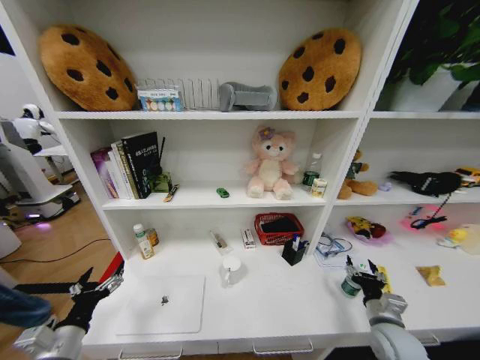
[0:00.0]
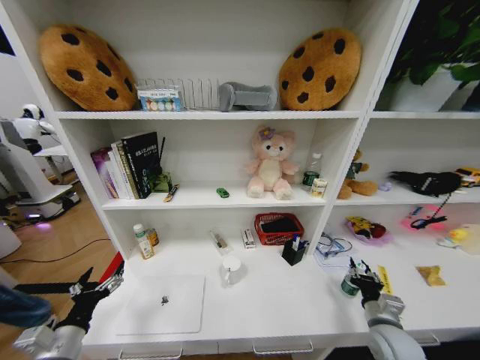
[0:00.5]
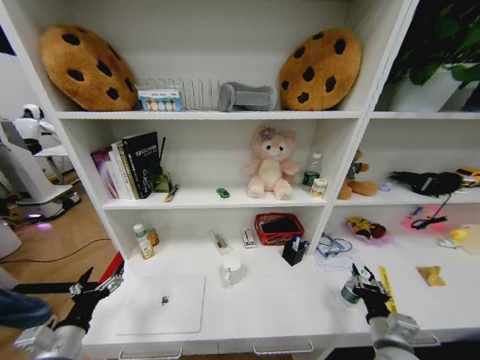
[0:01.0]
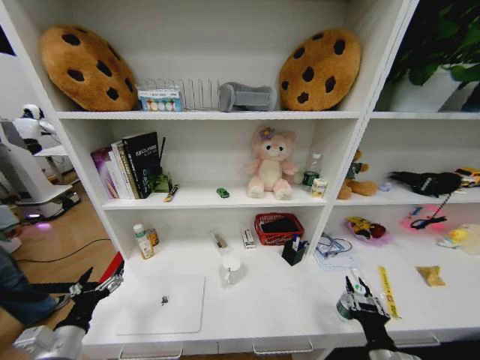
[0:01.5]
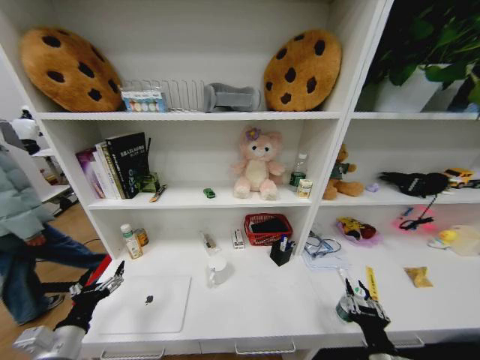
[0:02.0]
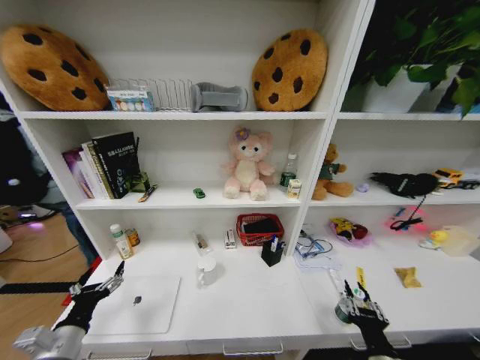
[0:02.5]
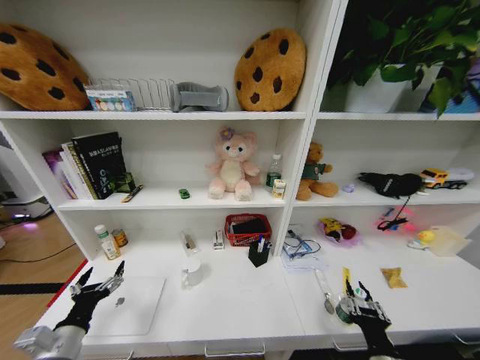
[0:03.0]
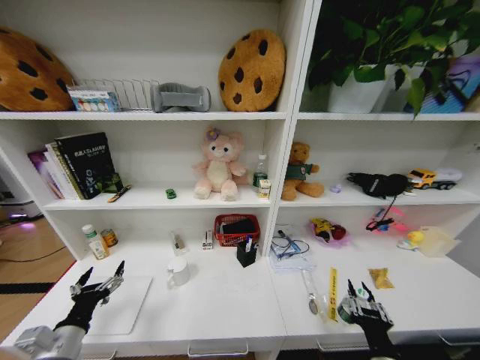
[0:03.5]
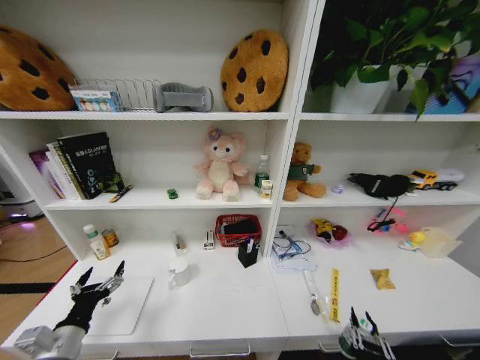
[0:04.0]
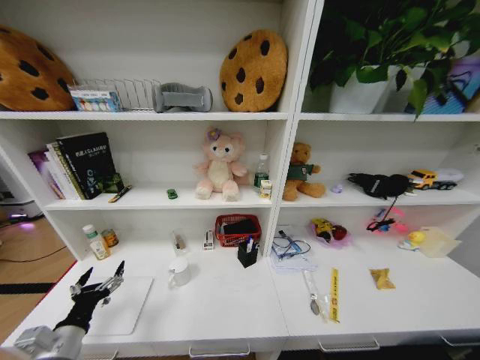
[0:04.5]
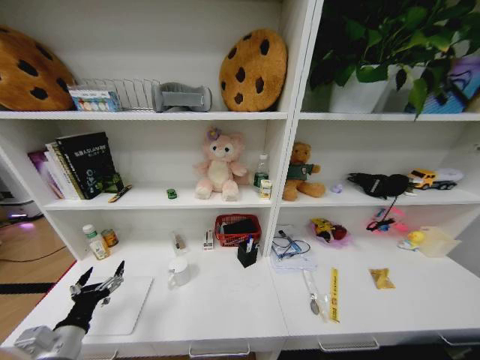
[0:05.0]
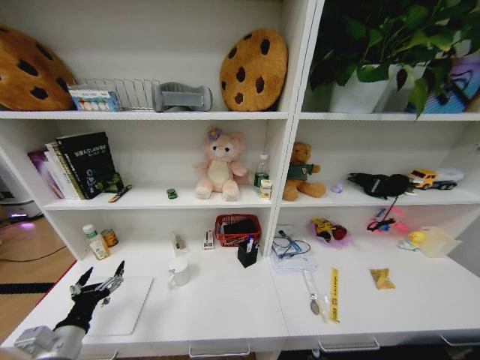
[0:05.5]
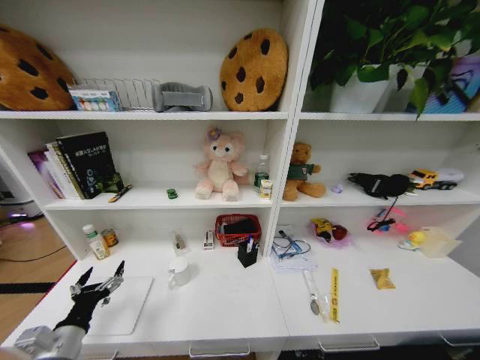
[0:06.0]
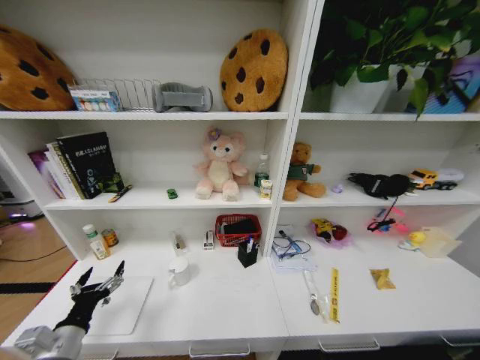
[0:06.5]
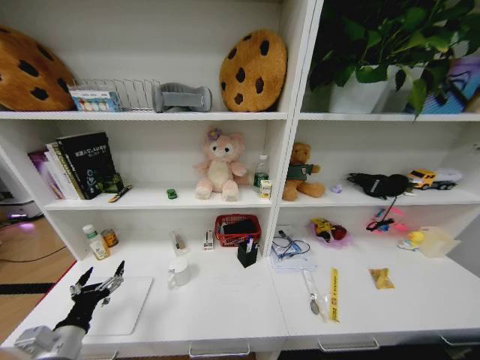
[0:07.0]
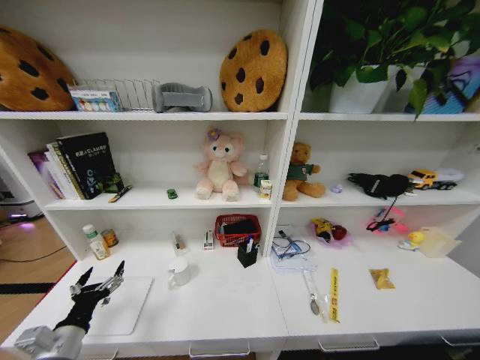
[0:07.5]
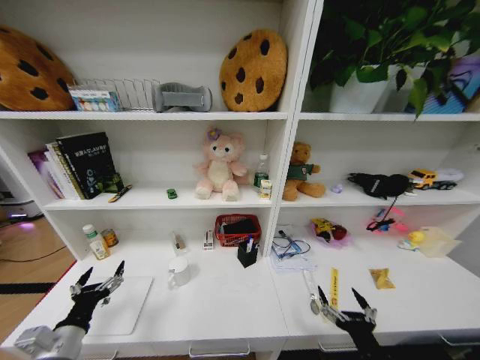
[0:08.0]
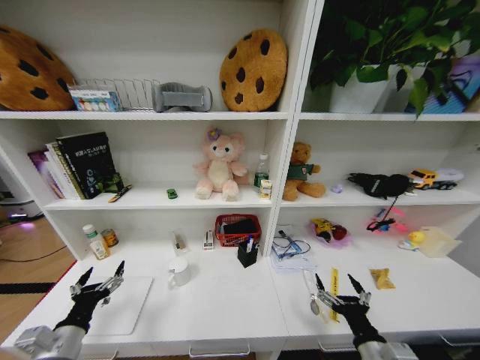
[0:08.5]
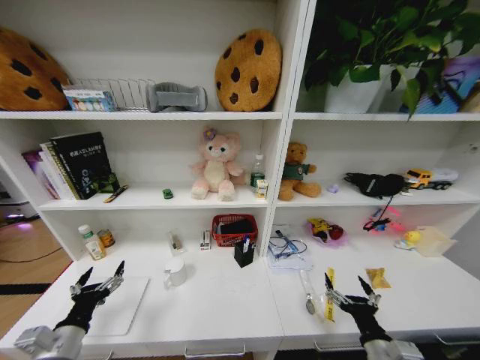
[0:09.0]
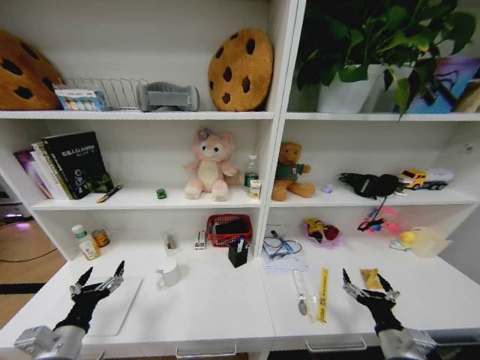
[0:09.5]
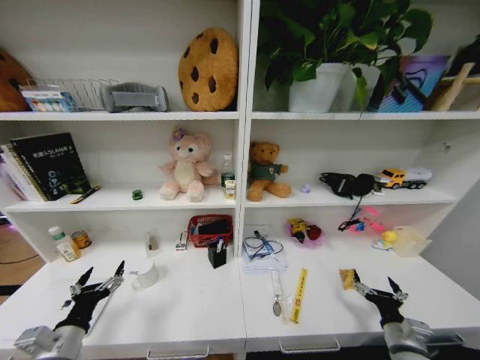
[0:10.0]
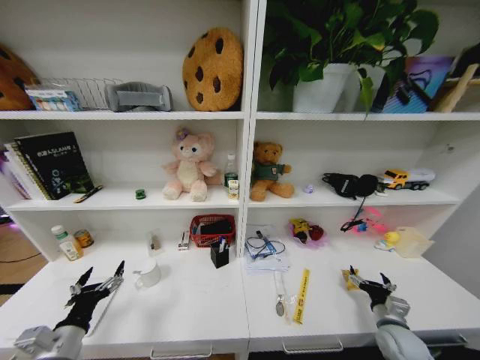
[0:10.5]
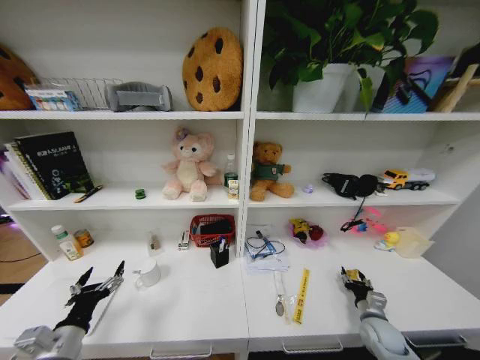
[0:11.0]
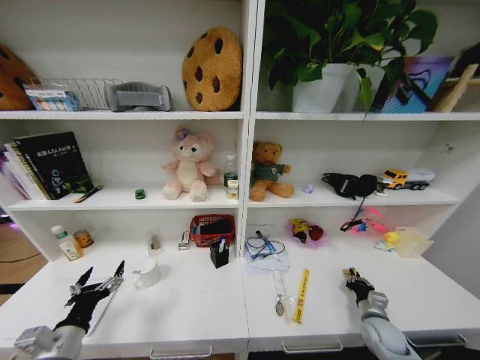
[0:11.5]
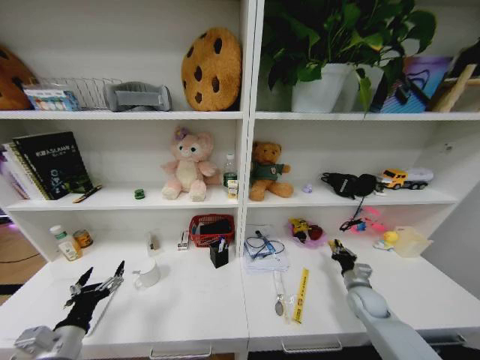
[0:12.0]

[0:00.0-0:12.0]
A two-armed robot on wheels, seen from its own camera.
Task of the whole recording: Organize the objects on the table.
0:00.0 to 0:02.0: The right gripper travels backward and to the left by some 15 cm, and closes up.
0:02.0 to 0:04.0: The right gripper shifts roughly 10 cm backward and to the left.
0:04.0 to 0:06.0: The right gripper moves downward, some 35 cm, and opens its fingers.
0:06.0 to 0:08.0: The right gripper moves upward, about 40 cm, and opens.
0:08.0 to 0:10.0: The right gripper goes roughly 15 cm to the right, forward and downward.
0:10.0 to 0:12.0: The right gripper shifts some 15 cm forward, and closes up.

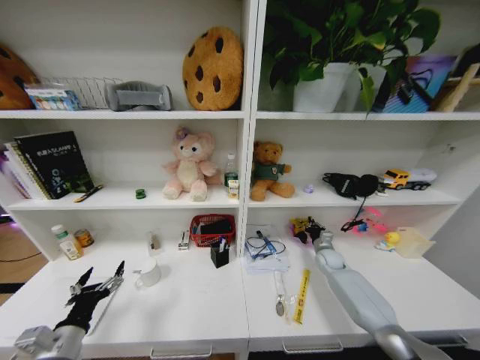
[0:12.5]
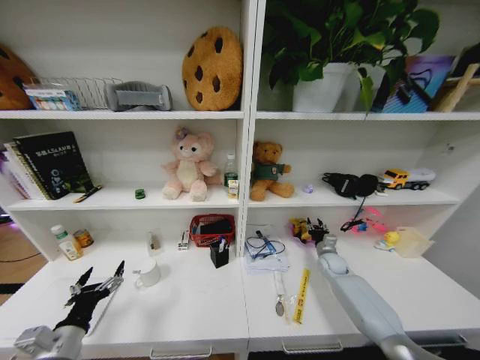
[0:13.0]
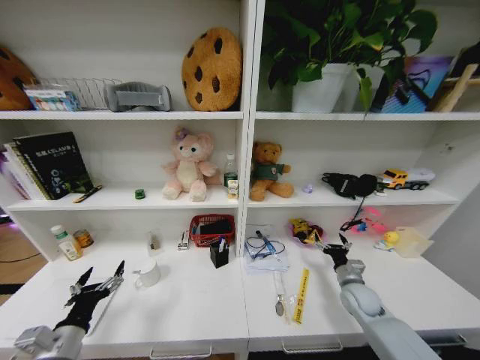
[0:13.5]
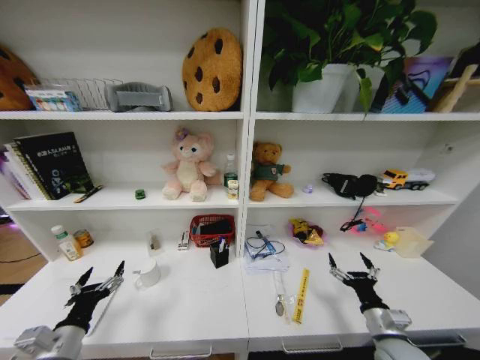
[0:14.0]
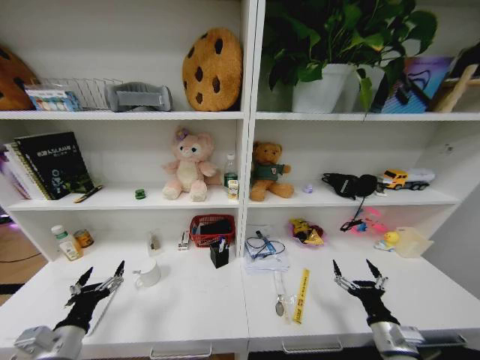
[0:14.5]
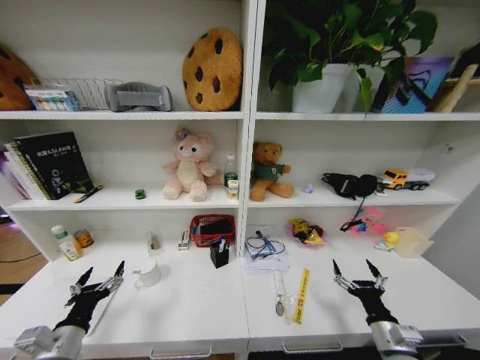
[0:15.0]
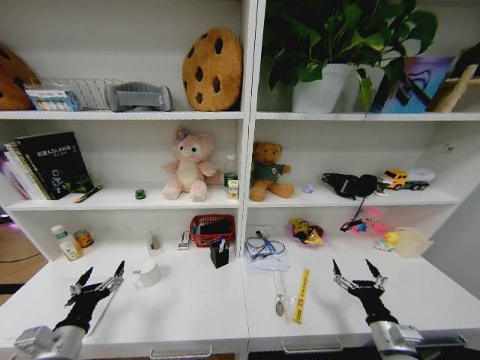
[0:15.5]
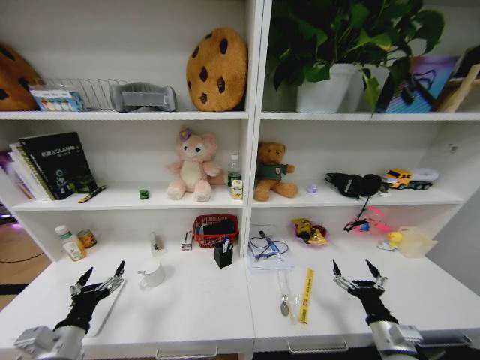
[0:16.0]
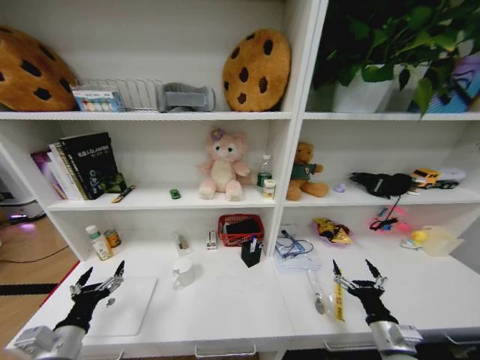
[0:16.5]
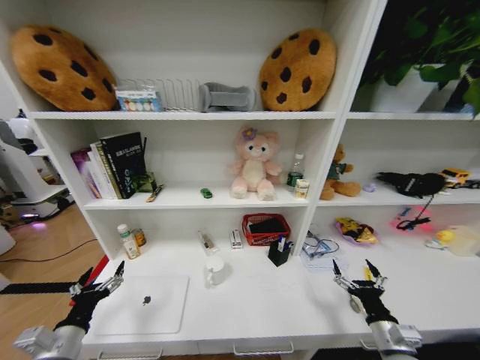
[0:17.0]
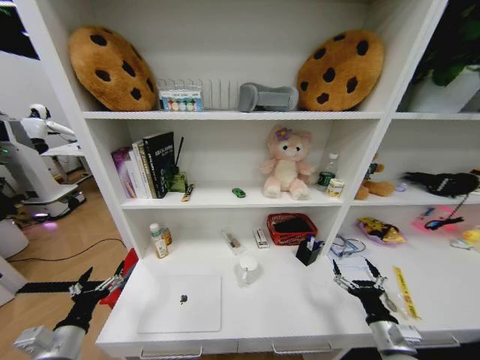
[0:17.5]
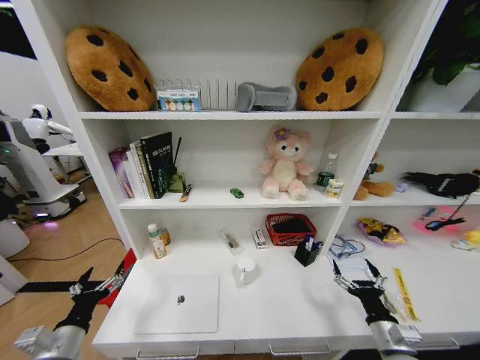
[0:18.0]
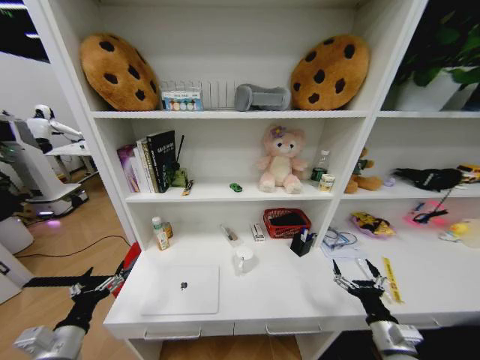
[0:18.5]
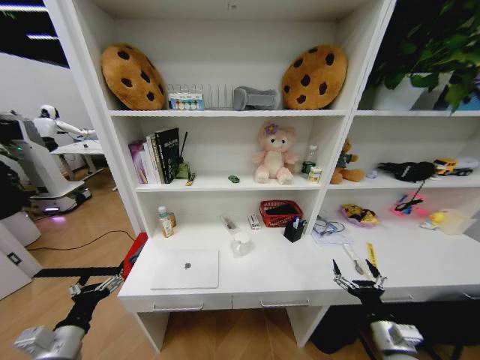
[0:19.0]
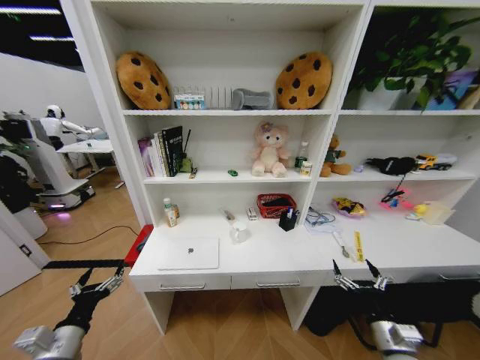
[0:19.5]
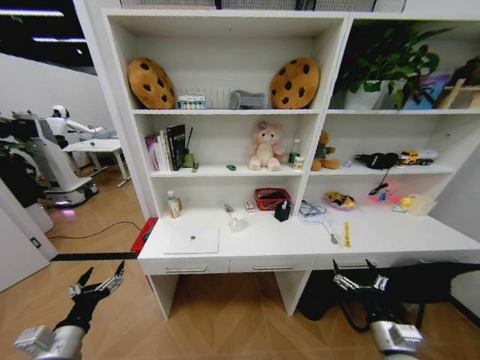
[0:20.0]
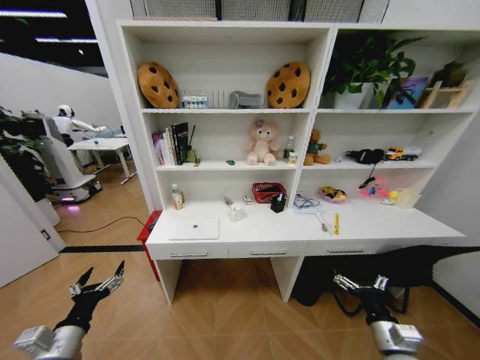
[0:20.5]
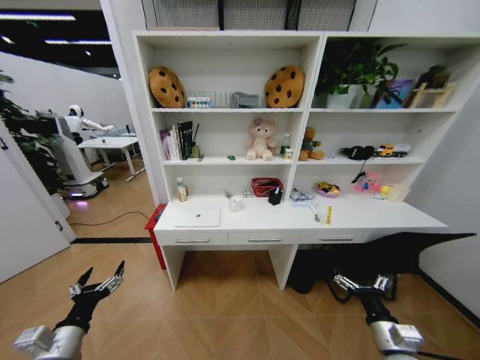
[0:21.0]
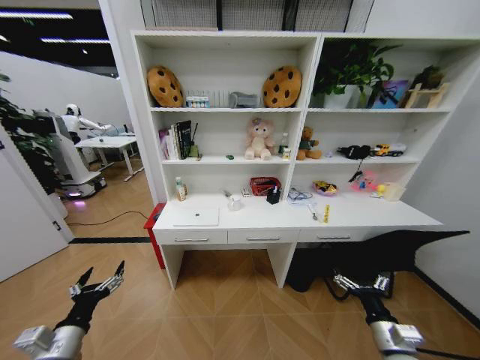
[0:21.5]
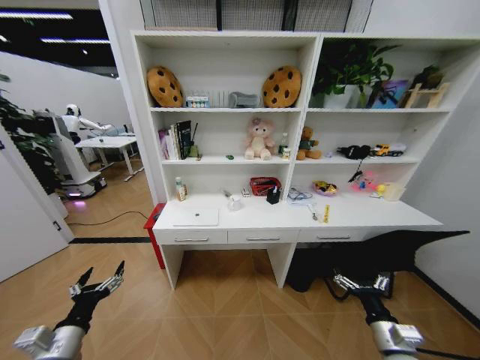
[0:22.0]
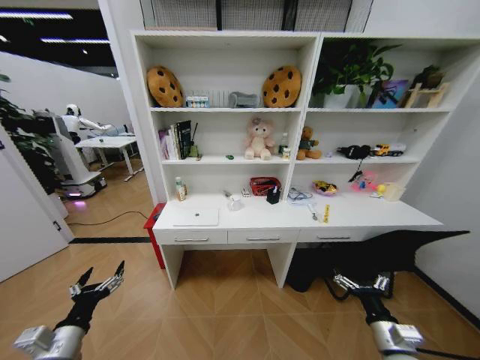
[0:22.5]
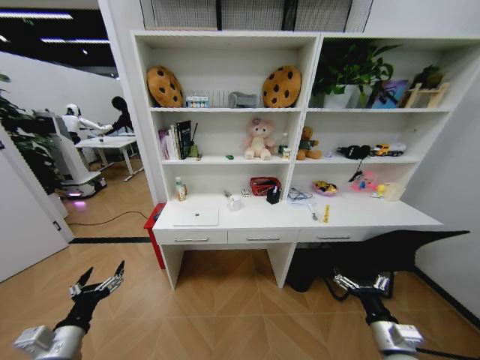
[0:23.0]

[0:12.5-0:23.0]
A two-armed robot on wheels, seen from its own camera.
Task of the whole recording: Organize the objects on the table.
0:12.5 to 0:14.5: The right gripper goes about 35 cm backward, and opens up.
0:21.0 to 0:23.0: The two grippers keep their place.

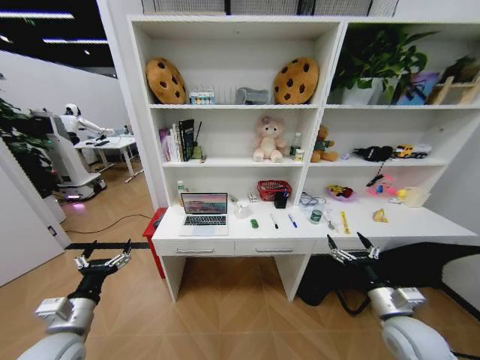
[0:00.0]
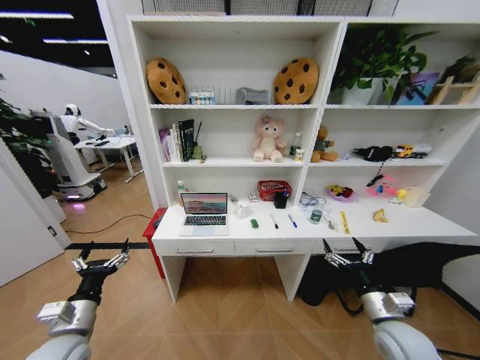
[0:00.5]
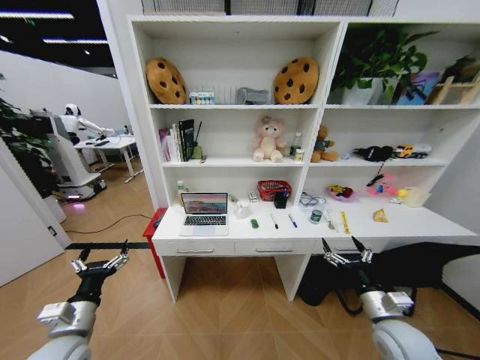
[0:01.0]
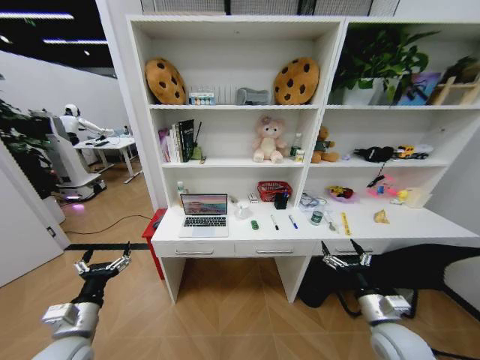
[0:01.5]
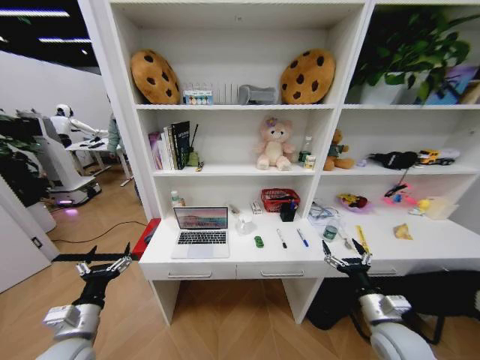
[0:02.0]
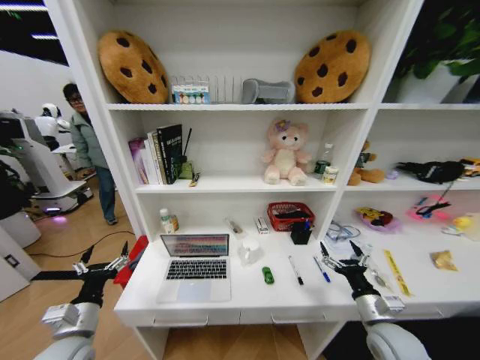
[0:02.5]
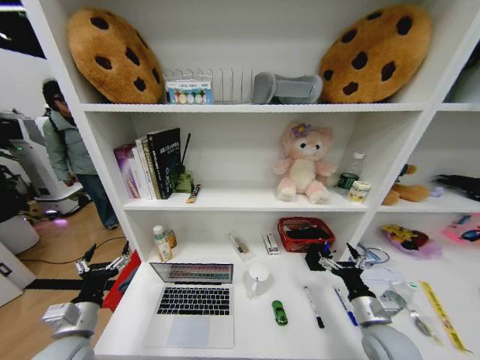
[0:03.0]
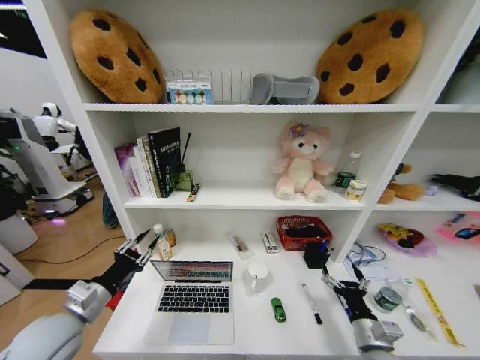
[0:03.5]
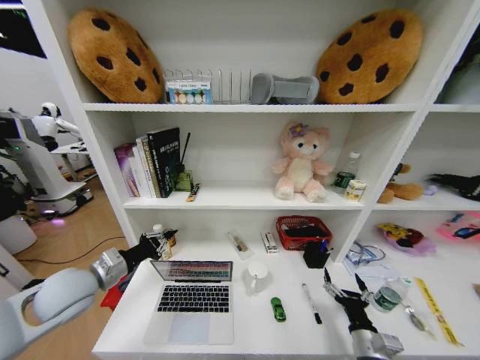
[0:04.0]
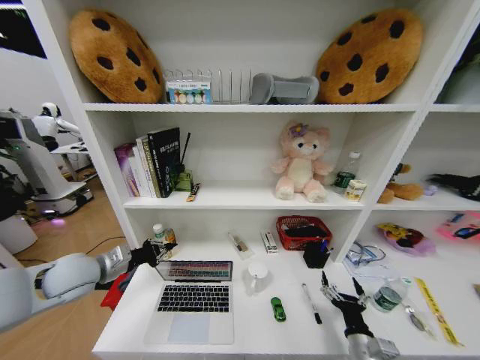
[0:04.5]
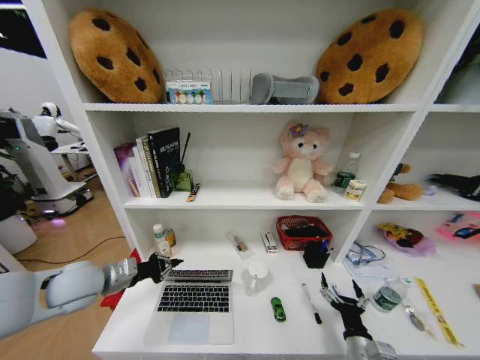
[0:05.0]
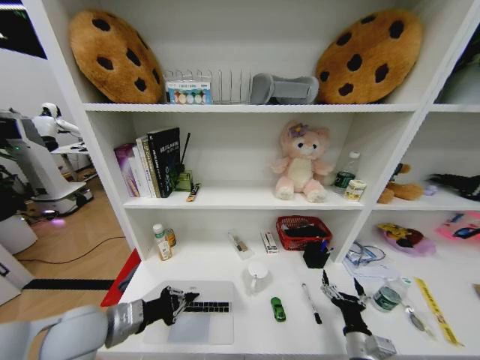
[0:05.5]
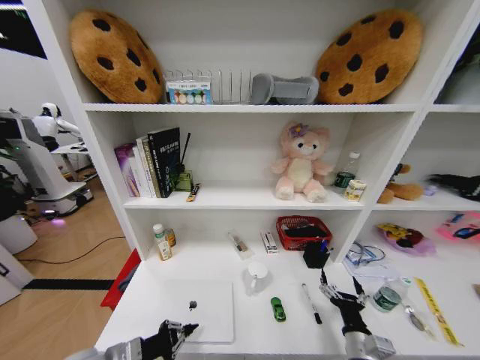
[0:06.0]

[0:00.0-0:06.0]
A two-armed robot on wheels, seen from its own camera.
Task of the whole recording: Organize the objects on the table.
0:02.0 to 0:04.0: The left gripper shifts roughly 15 cm upward and forward, and closes its fingers; the right gripper travels downward and backward by roughly 10 cm.
0:04.0 to 0:06.0: The left gripper shifts some 15 cm backward and downward.
